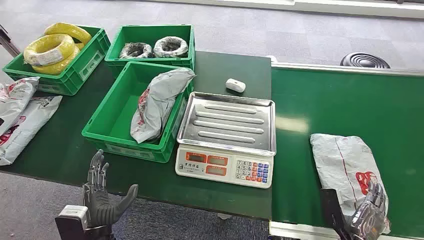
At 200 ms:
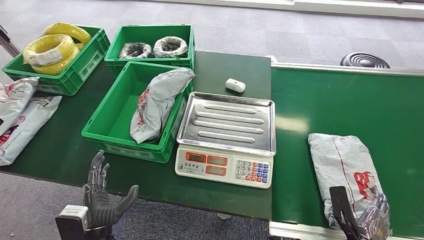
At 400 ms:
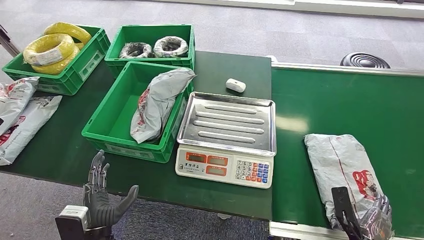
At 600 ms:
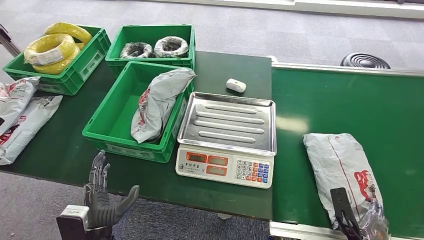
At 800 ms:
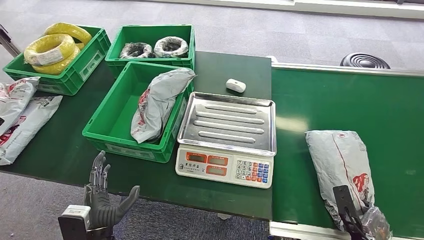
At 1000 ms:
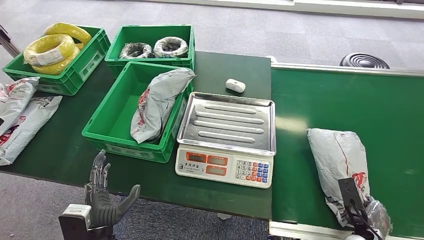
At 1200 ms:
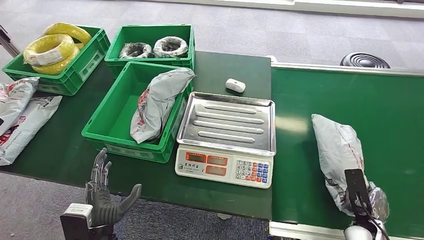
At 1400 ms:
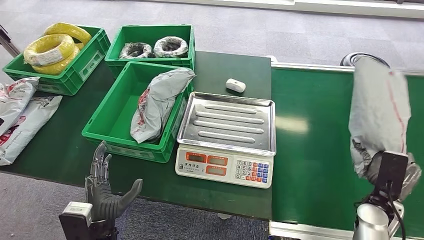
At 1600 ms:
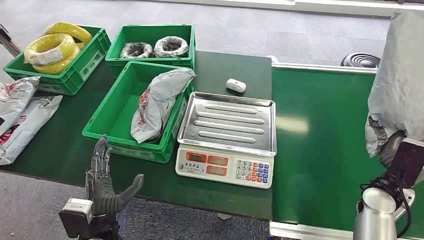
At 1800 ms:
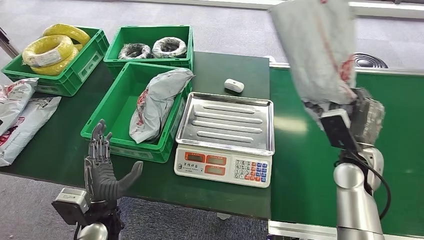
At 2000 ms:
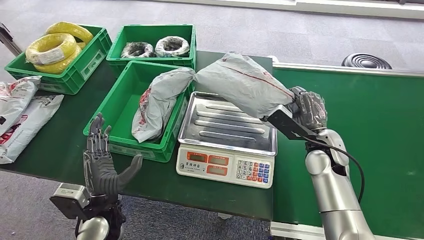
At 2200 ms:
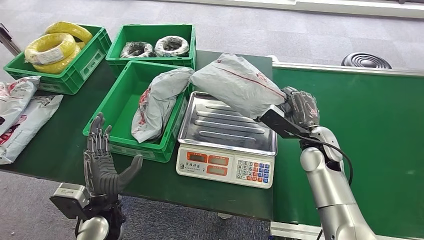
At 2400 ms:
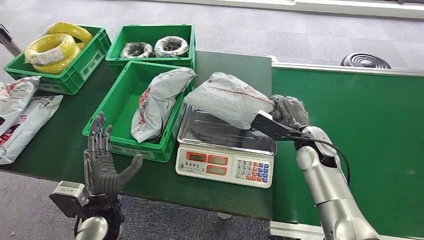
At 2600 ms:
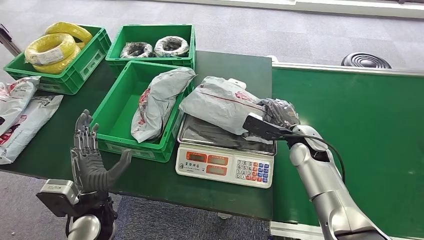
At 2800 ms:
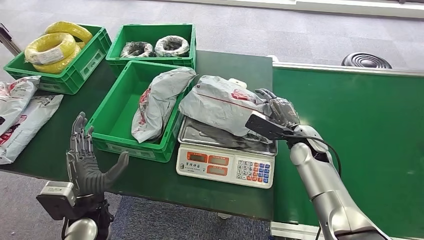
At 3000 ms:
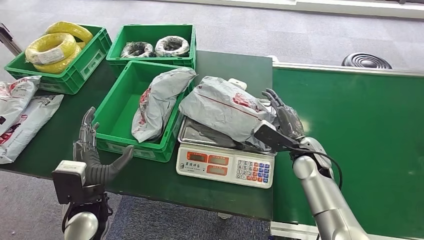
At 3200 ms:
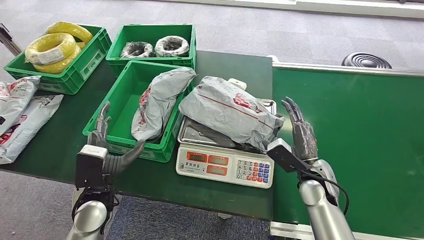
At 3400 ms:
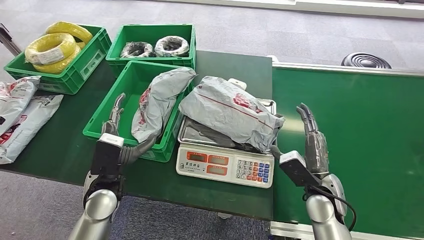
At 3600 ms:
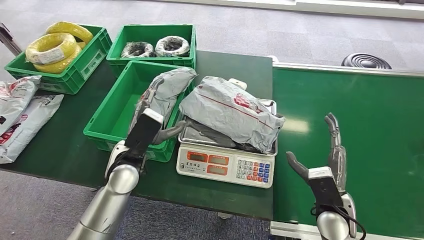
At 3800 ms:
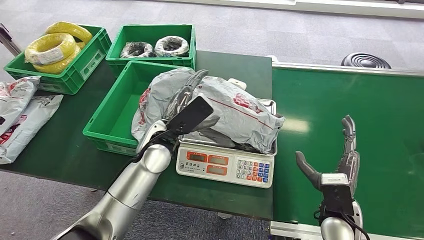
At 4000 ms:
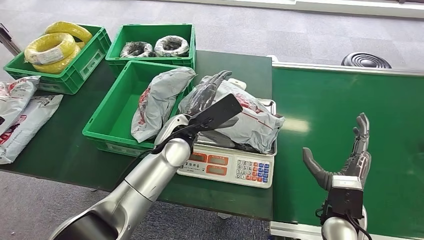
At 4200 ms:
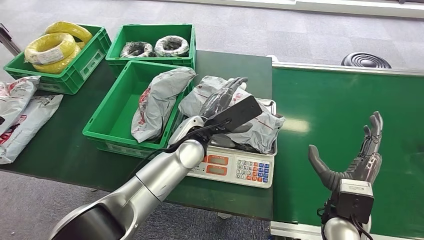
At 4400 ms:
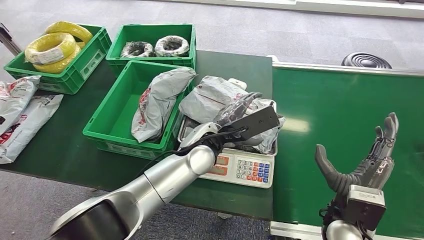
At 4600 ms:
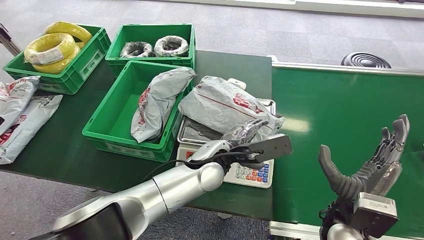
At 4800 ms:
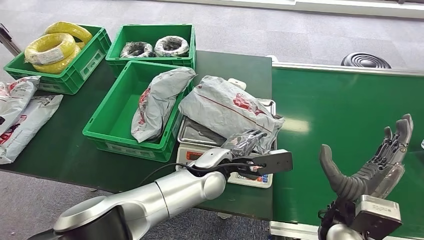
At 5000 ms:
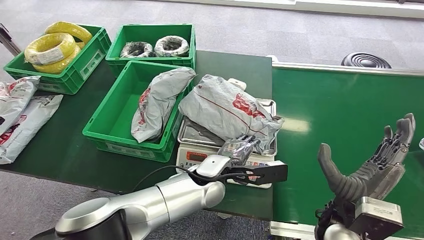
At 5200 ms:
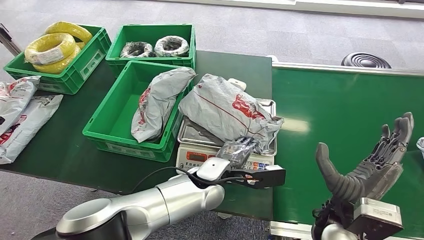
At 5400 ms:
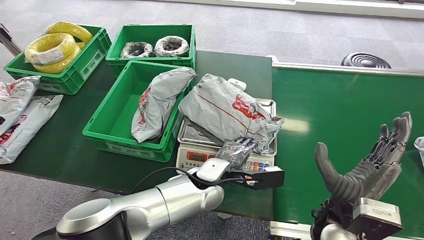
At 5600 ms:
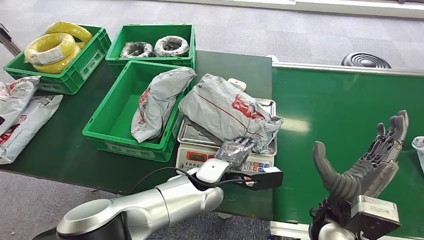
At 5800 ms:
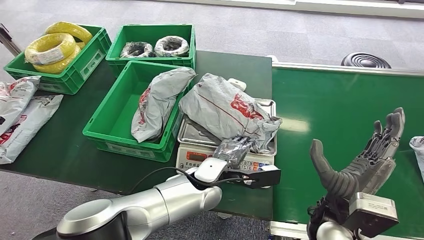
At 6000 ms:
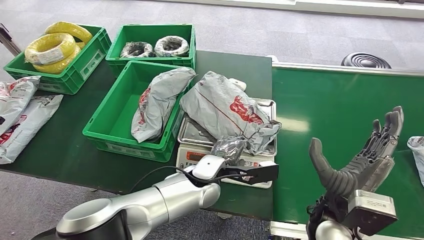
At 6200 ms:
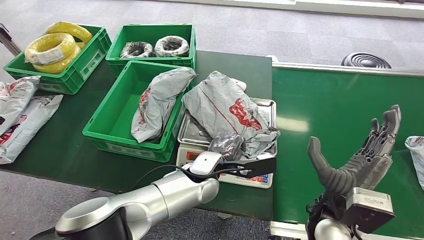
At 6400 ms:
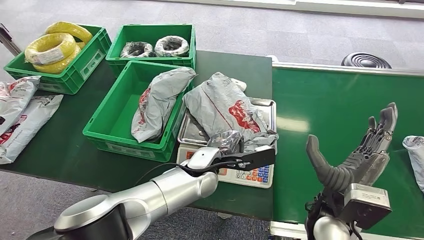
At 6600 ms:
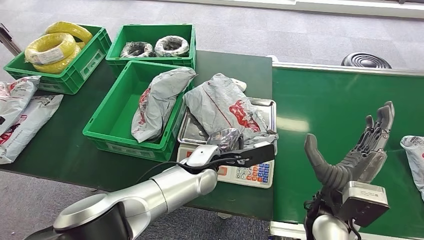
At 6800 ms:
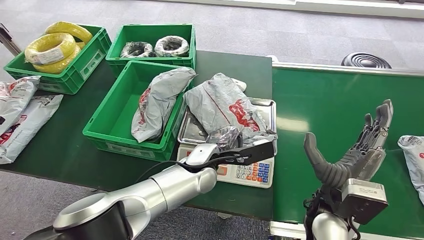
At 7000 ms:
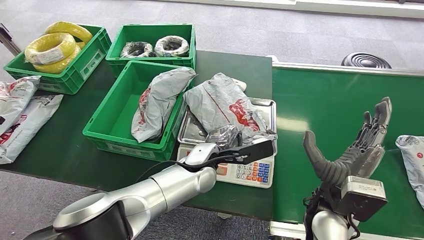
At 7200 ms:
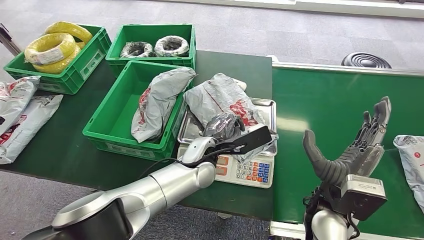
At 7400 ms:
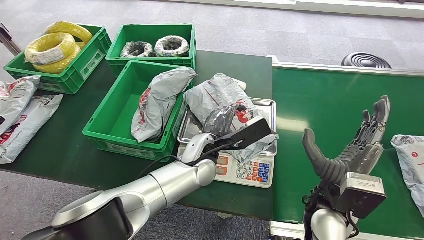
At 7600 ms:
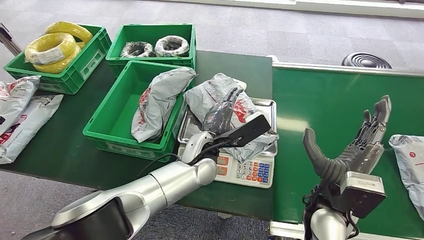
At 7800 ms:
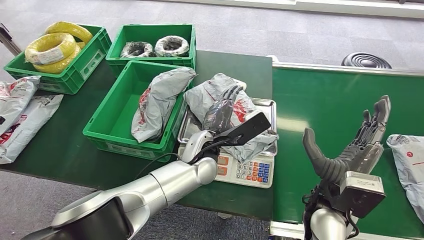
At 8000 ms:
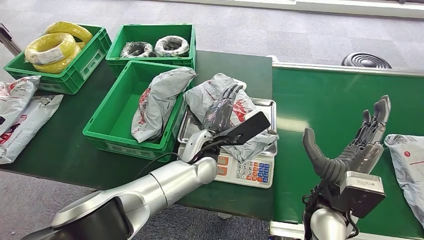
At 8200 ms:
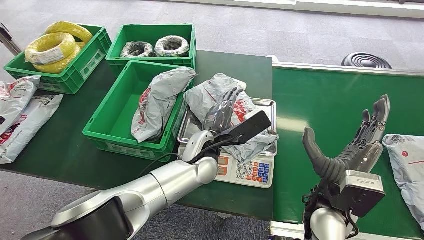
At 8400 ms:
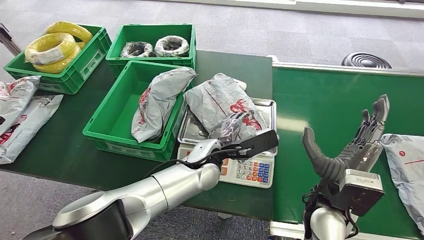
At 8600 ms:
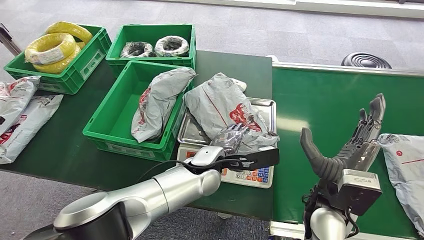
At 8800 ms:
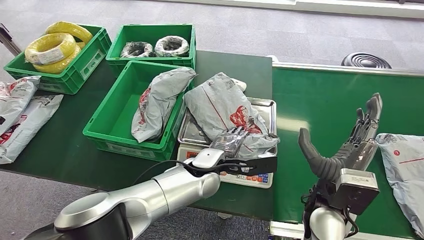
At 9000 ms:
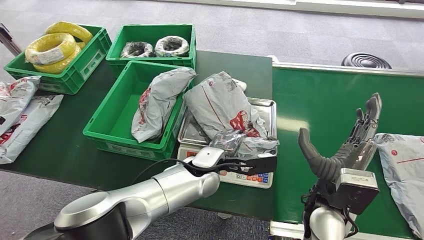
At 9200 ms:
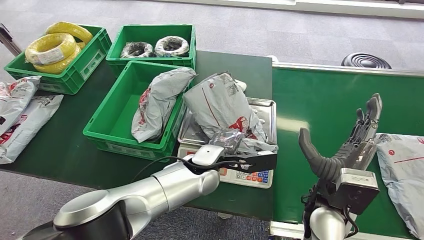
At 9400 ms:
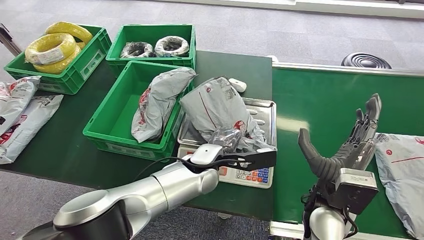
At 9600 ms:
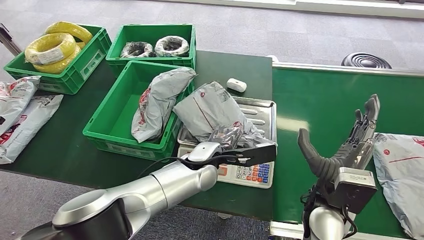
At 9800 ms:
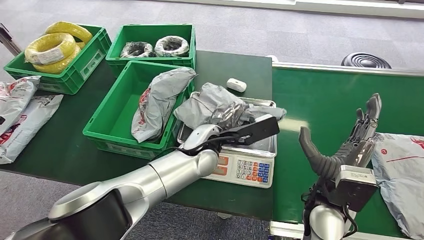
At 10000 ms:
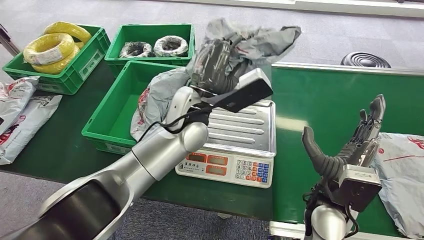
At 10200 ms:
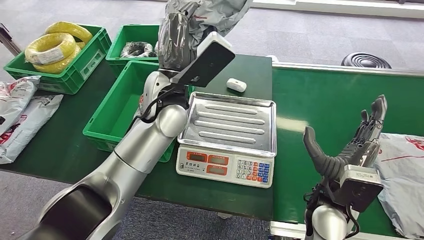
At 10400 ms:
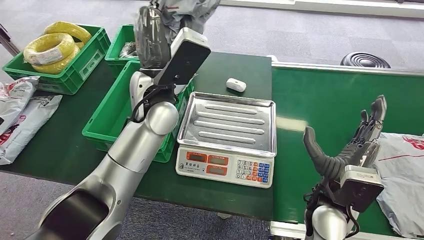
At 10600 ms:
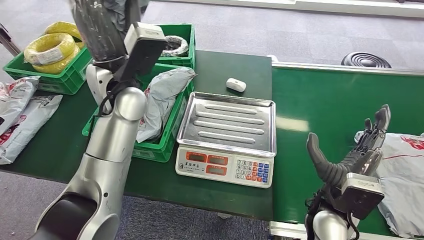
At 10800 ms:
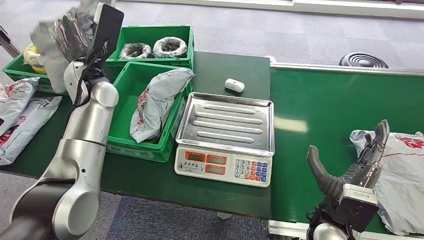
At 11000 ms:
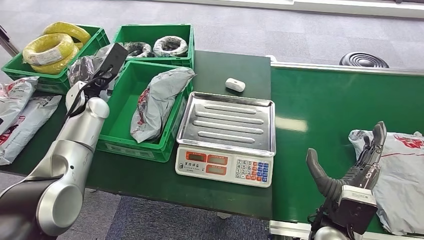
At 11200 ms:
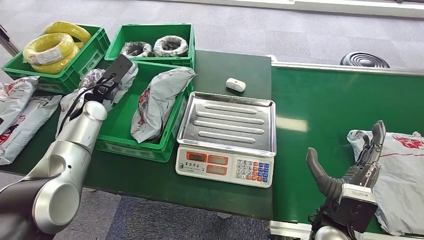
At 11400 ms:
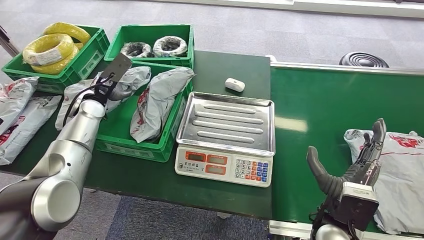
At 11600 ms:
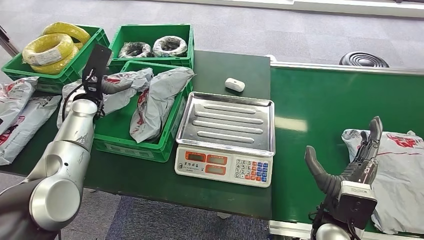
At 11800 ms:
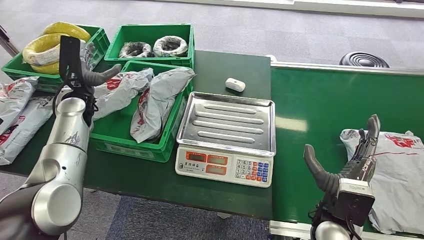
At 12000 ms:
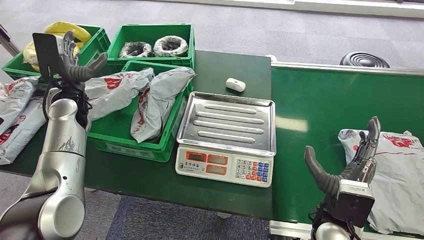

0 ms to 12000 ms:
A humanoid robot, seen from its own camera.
Step, 0 ms to 1400 ms: Pick up the package from the conveyor belt.
Step, 1800 ms to 3600 ms: Place the package onto the inbound machine.
Step, 3800 ms to 10000 ms: Pick up the package from the inbound machine.
Step, 10400 ms to 12000 ms: Place the package into the parcel locker.
3000 ms to 4400 ms: The left hand heads to the right, forward and upward, covering some 30 cm. Meanwhile the right hand goes approximately 15 cm backward.
4400 ms to 6000 ms: The left hand shifts approximately 10 cm downward. Meanwhile the right hand changes place by approximately 5 cm.
